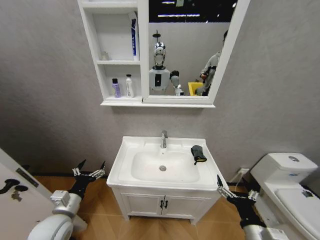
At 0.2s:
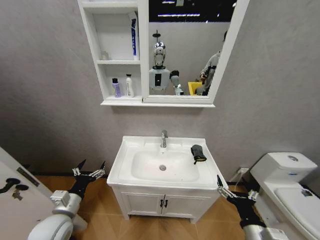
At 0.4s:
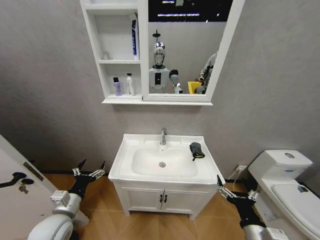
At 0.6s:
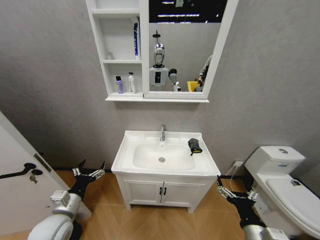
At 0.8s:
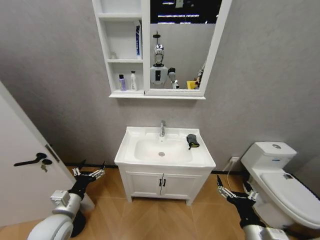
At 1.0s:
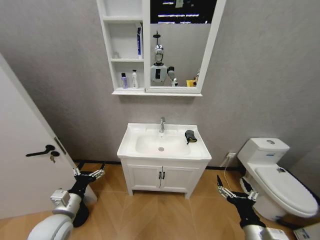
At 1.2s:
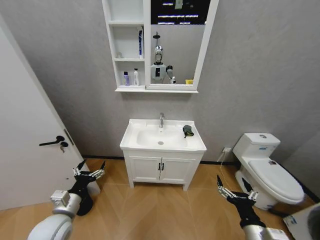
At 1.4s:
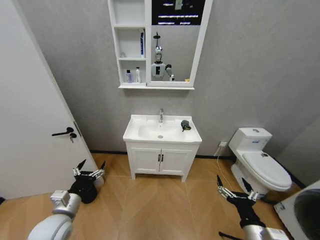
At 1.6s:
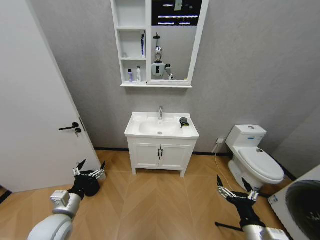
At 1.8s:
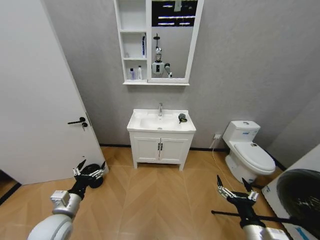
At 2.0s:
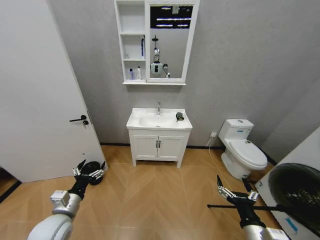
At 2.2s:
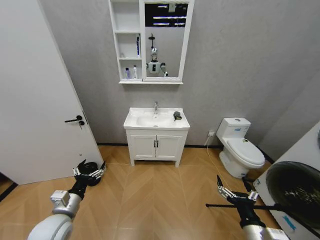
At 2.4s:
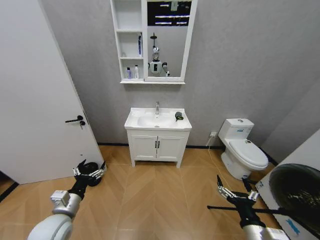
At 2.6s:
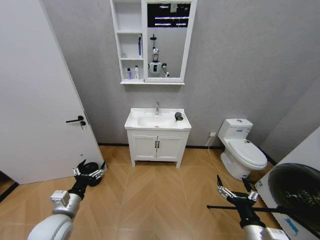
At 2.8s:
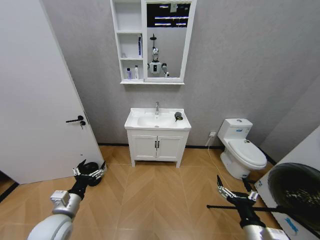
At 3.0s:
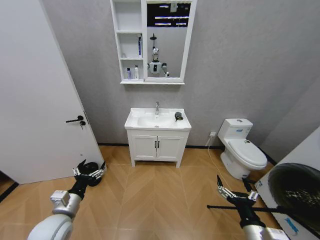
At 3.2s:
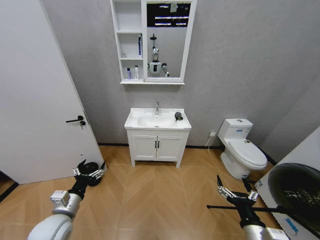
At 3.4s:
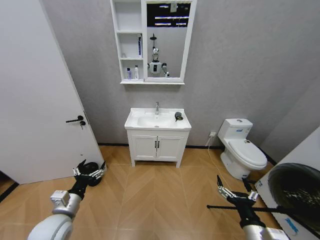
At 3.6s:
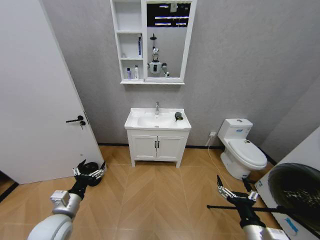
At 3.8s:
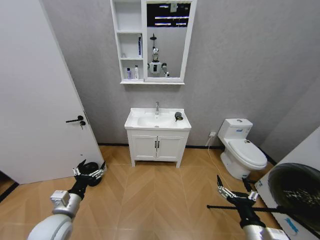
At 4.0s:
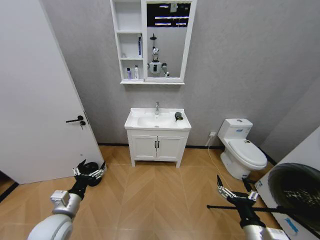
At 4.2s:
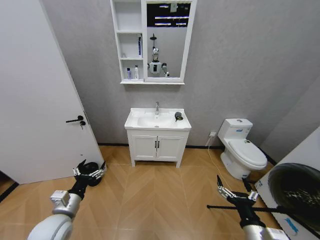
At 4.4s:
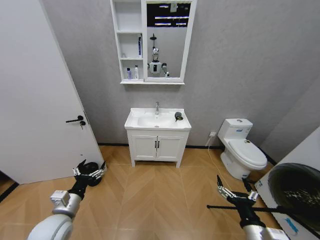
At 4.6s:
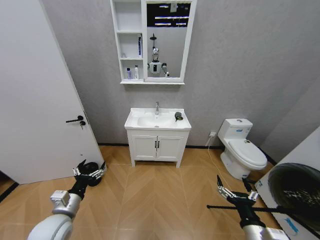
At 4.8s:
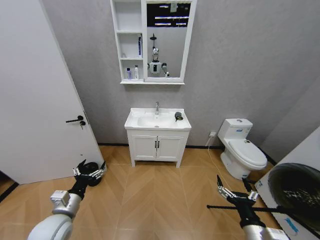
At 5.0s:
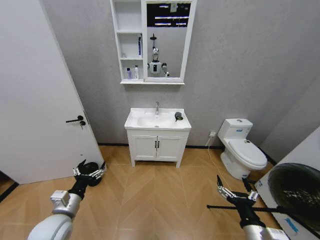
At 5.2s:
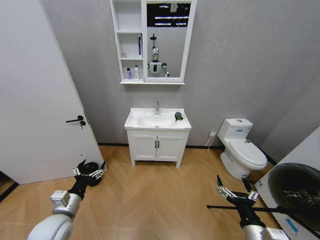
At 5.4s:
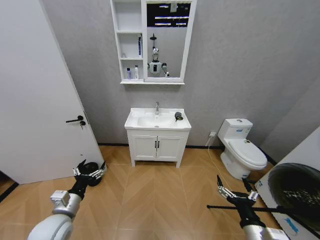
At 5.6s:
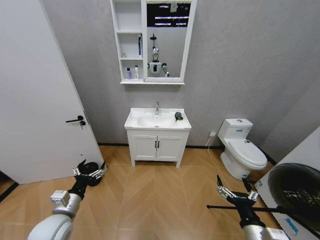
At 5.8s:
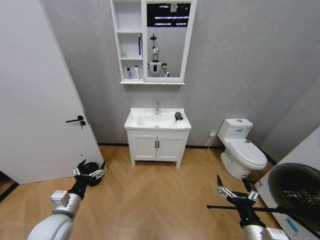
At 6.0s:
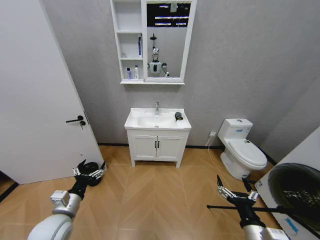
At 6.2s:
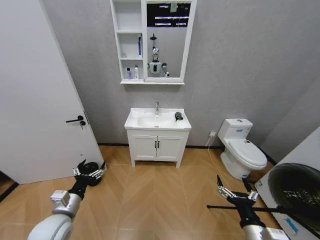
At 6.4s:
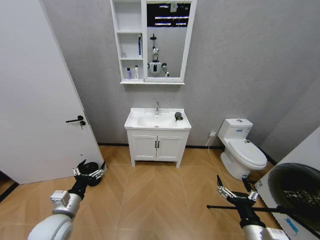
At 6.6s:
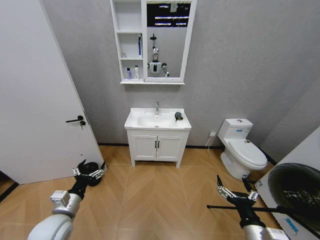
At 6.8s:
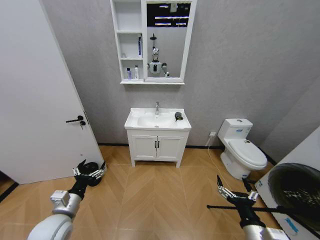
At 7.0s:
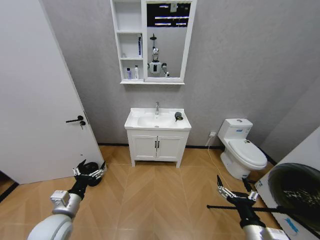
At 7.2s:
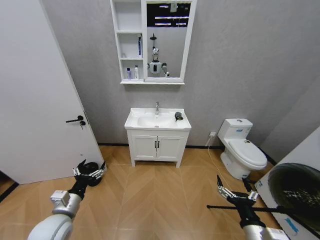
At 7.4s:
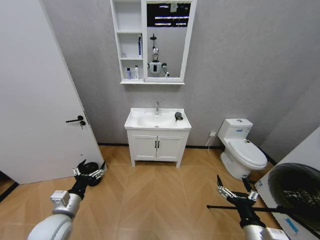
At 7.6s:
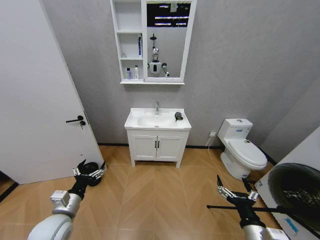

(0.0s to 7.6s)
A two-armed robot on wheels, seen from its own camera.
Task of the whole recording: Move facial cleanser and shampoo from washbasin to cabinet, then wipe washbasin with towel.
1.6s - 7.6s: Both grippers stay about where they are.
